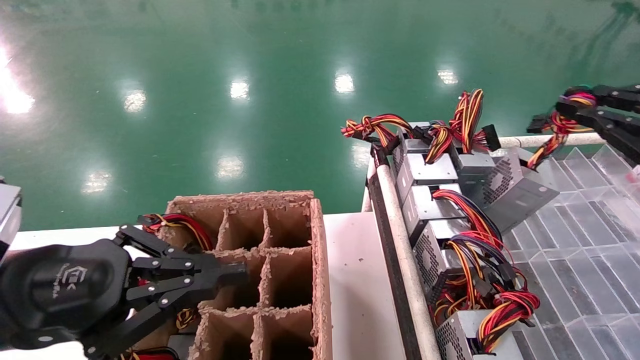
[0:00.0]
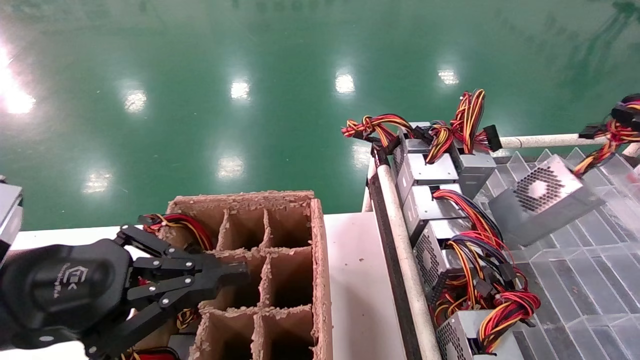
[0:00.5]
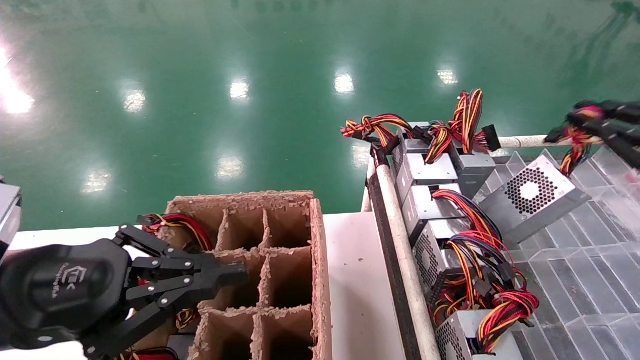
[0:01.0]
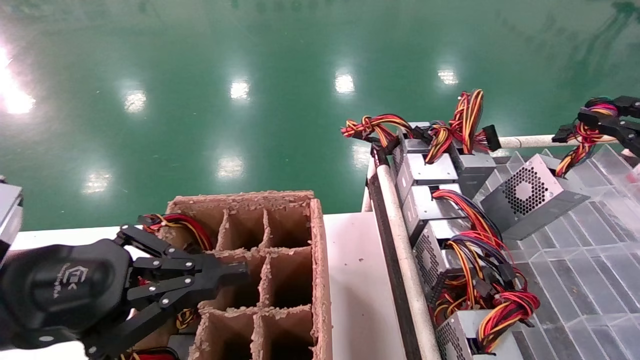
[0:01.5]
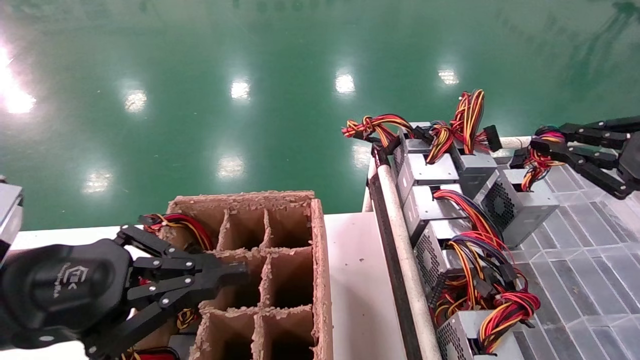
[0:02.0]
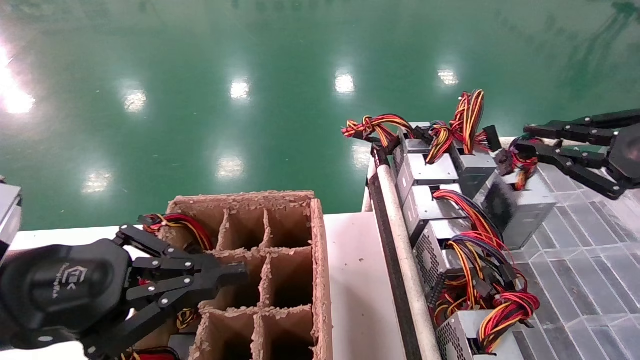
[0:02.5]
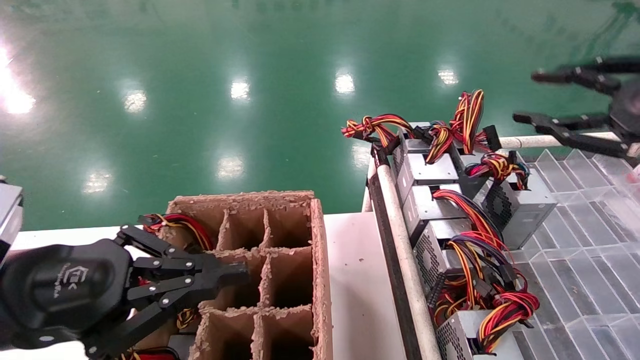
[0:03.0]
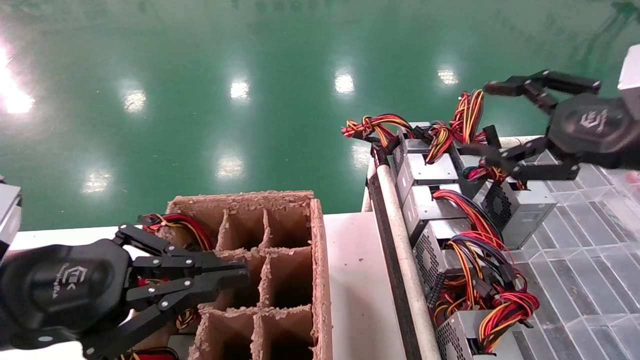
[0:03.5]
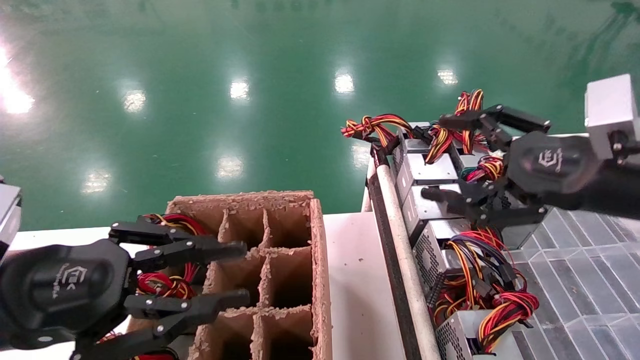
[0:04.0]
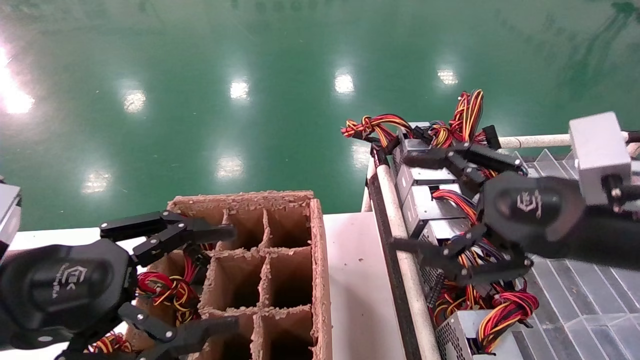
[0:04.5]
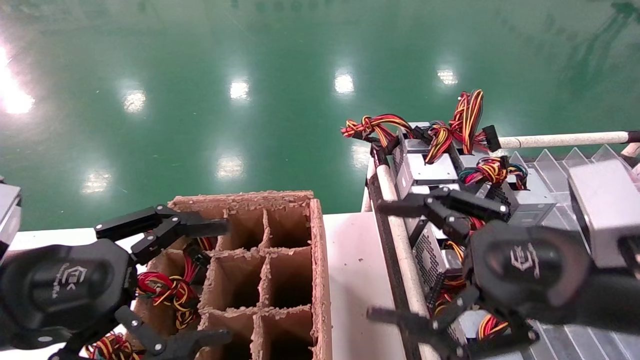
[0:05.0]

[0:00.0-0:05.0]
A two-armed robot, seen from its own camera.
Step, 0:00.0 to 0:02.5: Place the main unit power supply in the designated area.
0:00.0 to 0:02.5: The grippers move only a little.
0:02.5 to 0:05.0: The left gripper opens up. Meanwhile the right gripper shifts roughly 20 cm to the left, and opens.
